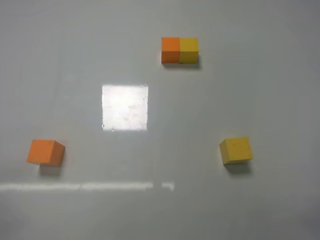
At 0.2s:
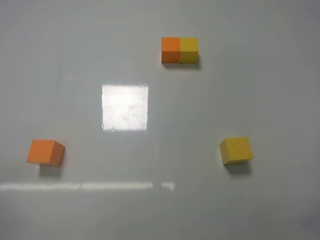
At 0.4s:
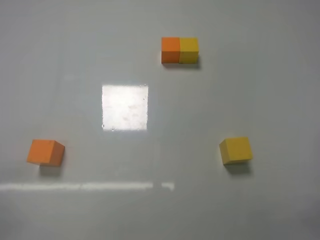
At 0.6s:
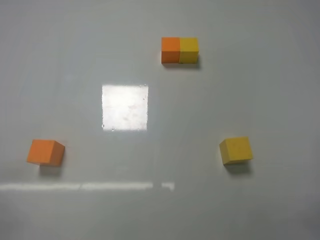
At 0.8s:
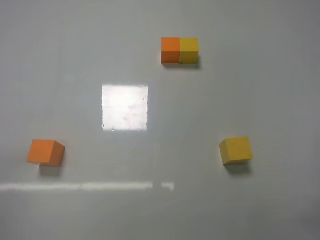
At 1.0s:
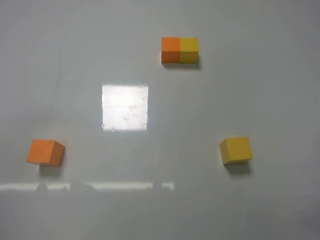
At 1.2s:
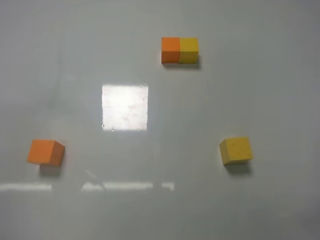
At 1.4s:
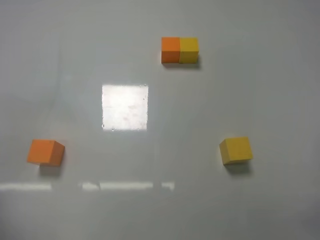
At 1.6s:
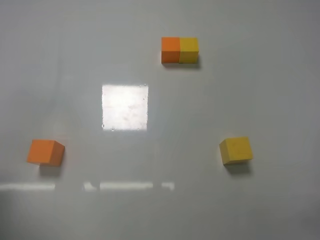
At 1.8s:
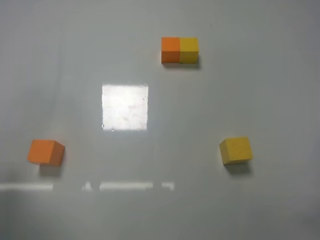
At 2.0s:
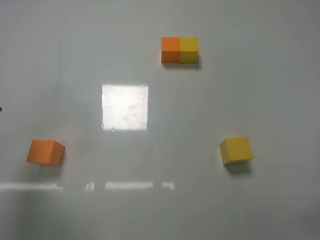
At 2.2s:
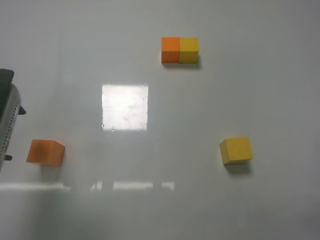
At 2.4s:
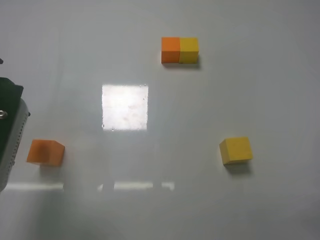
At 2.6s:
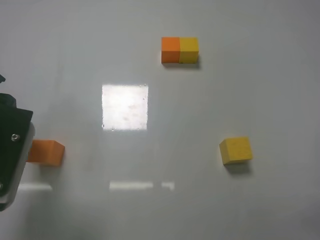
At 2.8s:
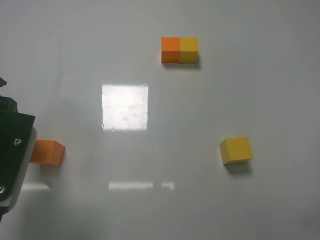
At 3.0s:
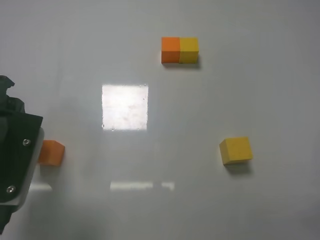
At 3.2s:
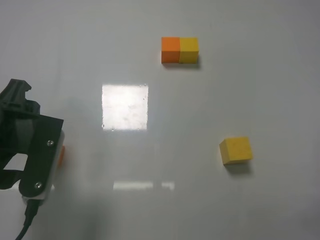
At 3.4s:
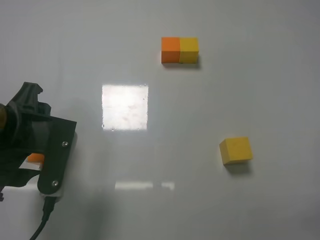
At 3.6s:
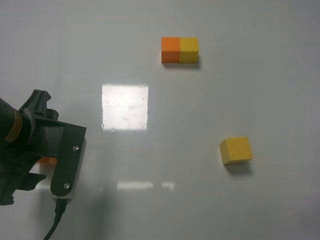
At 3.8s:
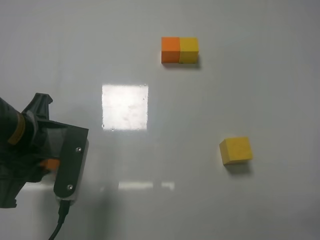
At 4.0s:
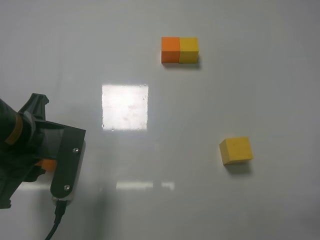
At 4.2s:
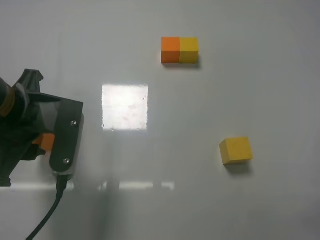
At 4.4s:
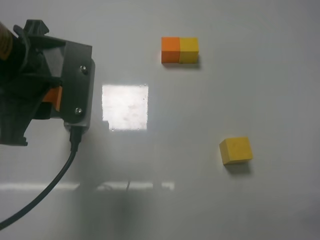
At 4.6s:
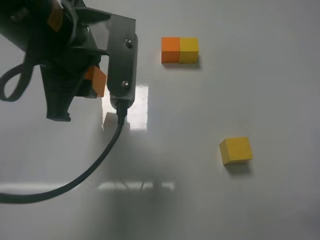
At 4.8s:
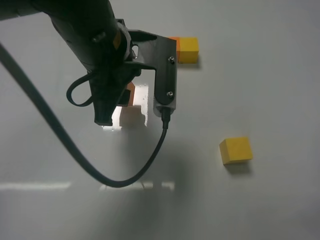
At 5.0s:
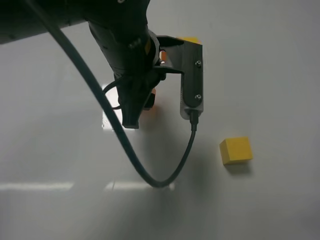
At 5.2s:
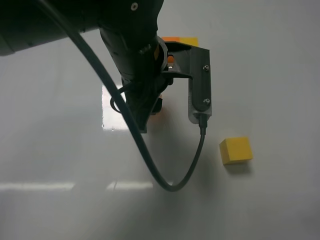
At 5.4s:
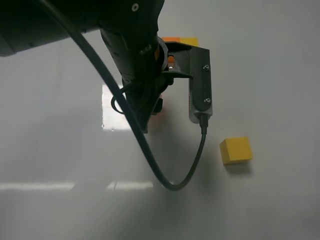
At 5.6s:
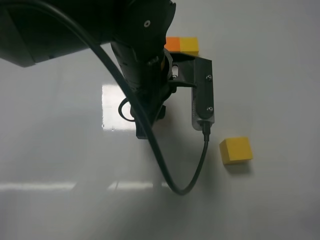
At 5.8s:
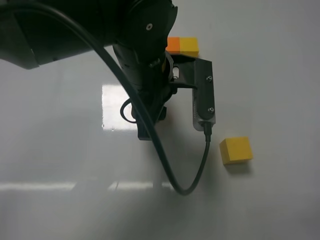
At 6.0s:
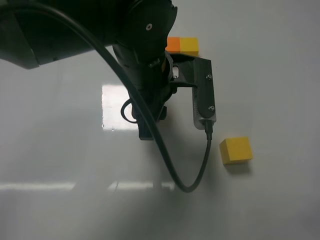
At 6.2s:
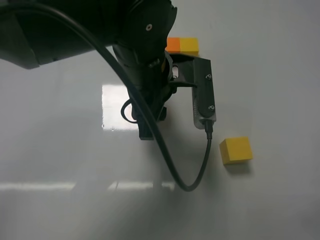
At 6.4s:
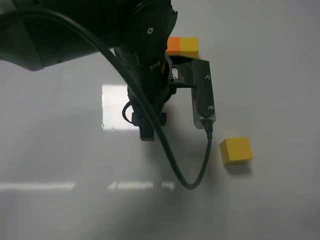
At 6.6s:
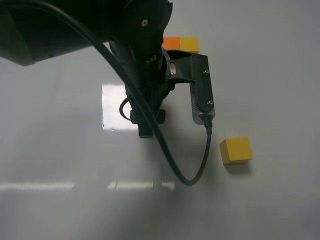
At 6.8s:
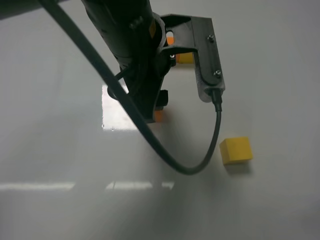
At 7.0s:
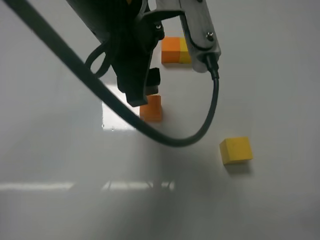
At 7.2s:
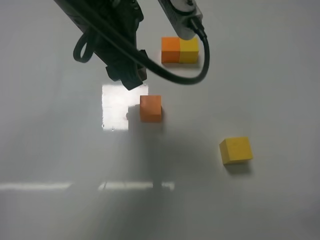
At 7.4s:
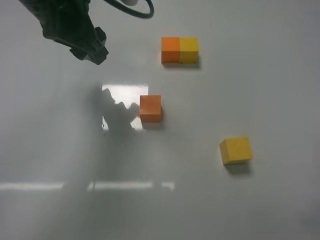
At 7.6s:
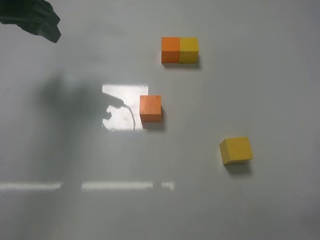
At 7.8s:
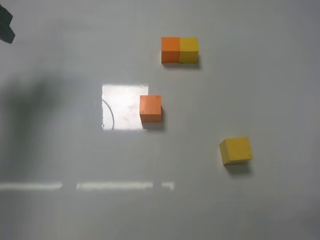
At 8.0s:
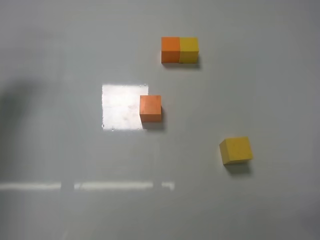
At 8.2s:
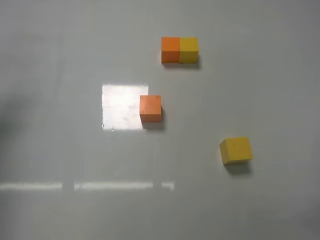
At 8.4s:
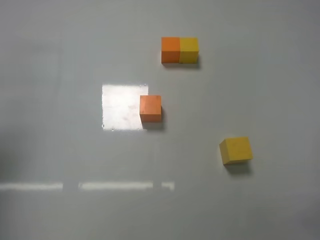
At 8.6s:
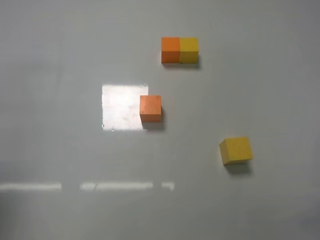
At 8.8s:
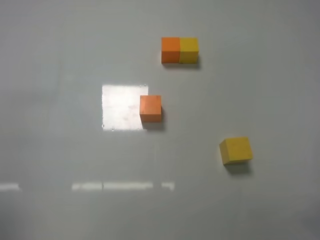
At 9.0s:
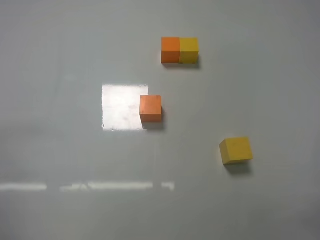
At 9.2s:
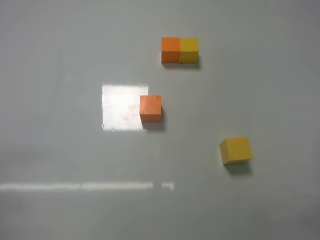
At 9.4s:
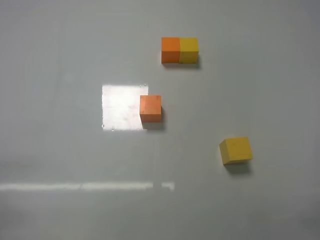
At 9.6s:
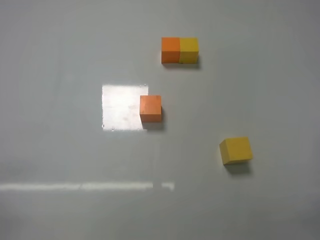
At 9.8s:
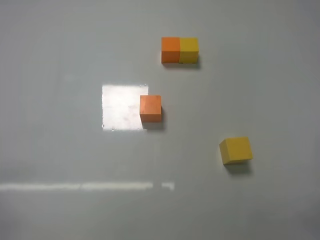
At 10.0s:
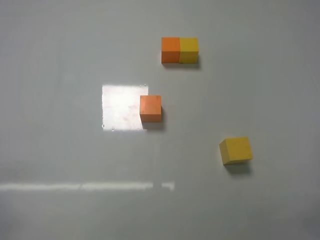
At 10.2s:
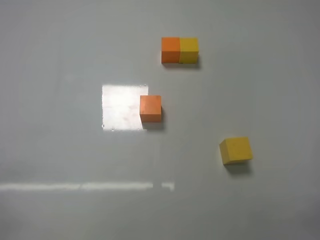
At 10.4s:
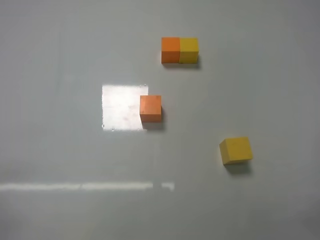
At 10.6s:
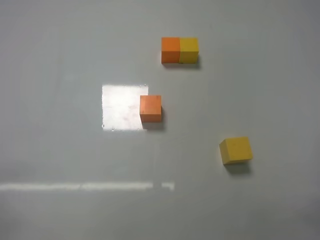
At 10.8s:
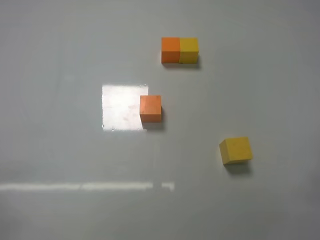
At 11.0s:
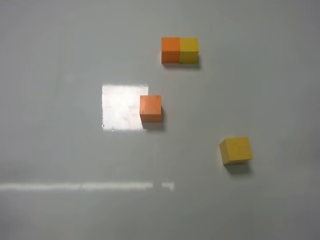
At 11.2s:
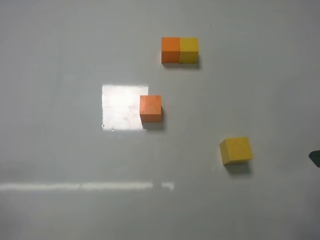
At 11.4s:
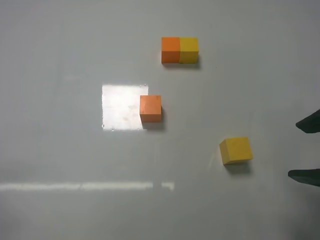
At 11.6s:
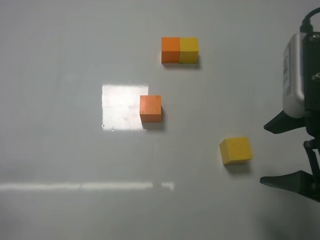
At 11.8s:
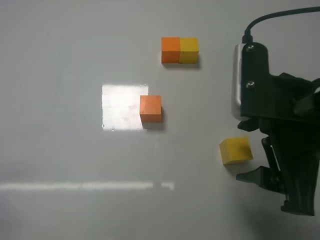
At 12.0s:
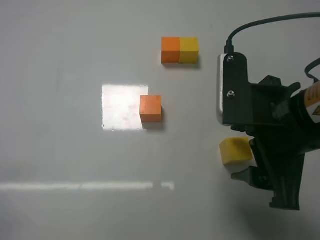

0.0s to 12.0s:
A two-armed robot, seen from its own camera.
Task of the whole recording: According to the building block template in front, assemble the scattered blocks together.
Step, 0.0s to 3.8s: Grasp the orange block with left gripper.
Step, 4.0s to 6.6s: Adjust the position of the cube with the left gripper.
0.0s to 1.6s: The left gripper is displaced upward and forward by approximately 20 cm.
1.6s to 3.0s: The left gripper moves to the right and downward, some 10 cm.
3.0s to 4.4s: The left gripper shifts about 10 cm upward and to the right, and closes up.
4.4s to 6.0s: The left gripper travels to the right and forward by approximately 15 cm.
6.0s to 7.6s: The left gripper heads to the left and upward, covering some 25 cm, and opens its fingers.
7.6s to 9.0s: The left gripper moves backward and downward, some 30 cm.
10.4s to 12.0s: The right gripper goes roughly 25 cm forward, to the left and upward, and opens its fingers.

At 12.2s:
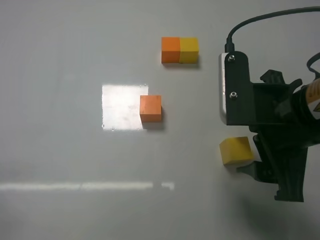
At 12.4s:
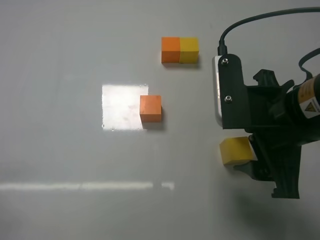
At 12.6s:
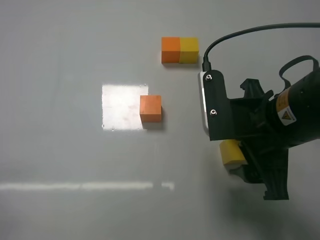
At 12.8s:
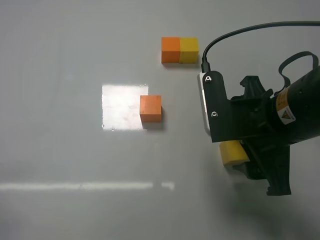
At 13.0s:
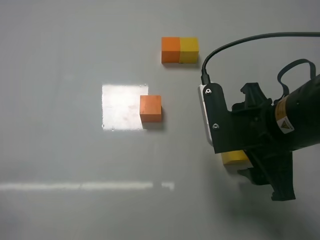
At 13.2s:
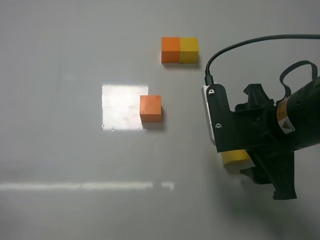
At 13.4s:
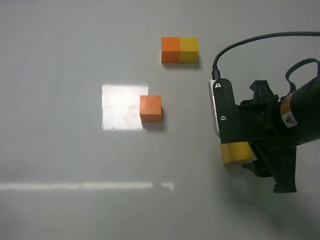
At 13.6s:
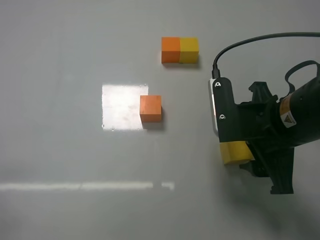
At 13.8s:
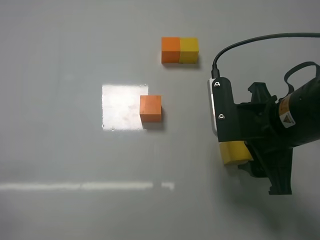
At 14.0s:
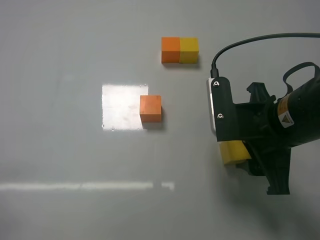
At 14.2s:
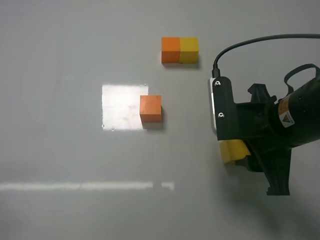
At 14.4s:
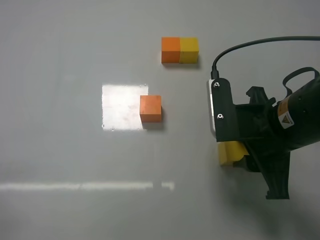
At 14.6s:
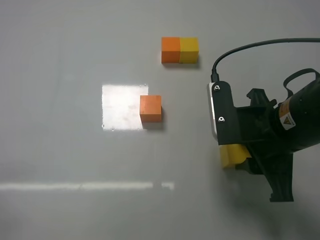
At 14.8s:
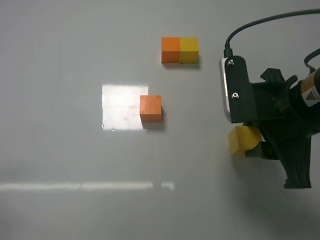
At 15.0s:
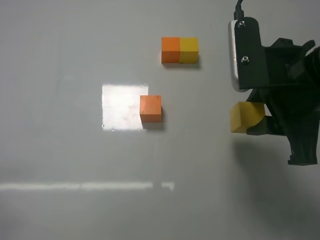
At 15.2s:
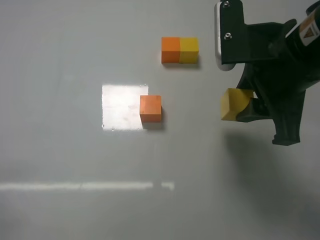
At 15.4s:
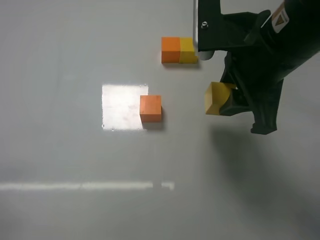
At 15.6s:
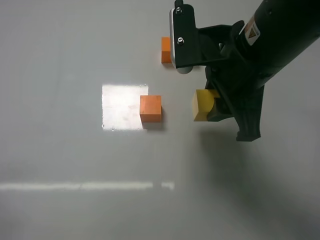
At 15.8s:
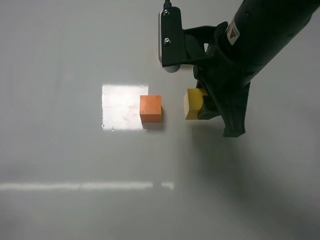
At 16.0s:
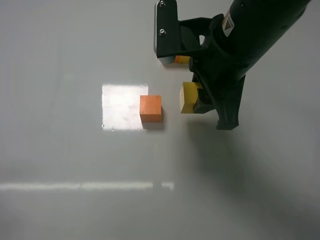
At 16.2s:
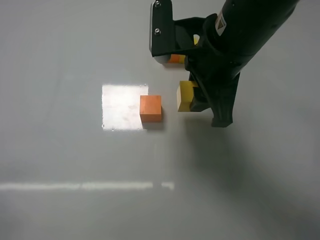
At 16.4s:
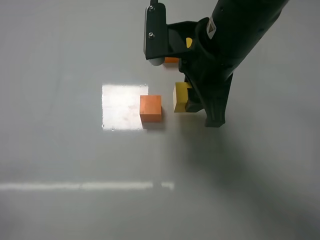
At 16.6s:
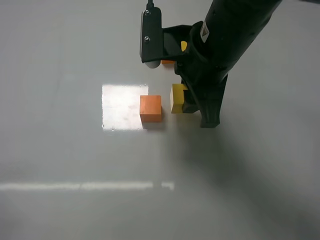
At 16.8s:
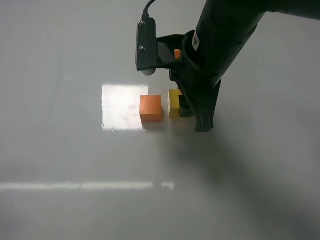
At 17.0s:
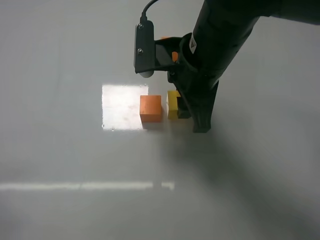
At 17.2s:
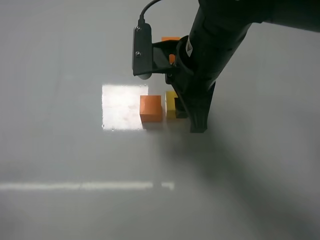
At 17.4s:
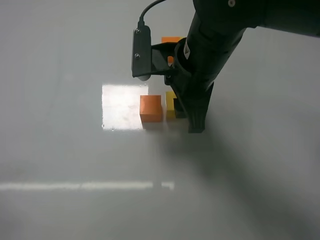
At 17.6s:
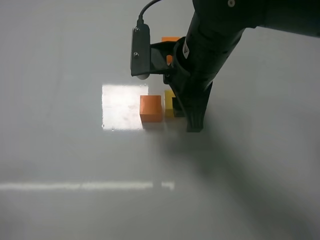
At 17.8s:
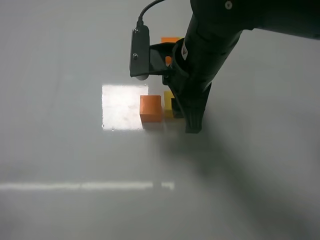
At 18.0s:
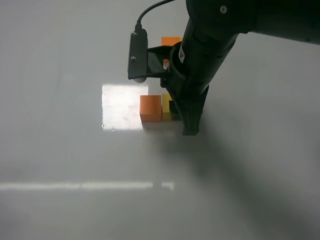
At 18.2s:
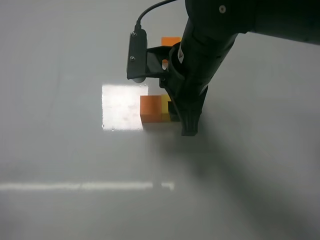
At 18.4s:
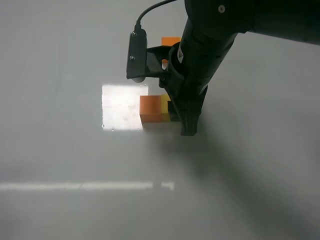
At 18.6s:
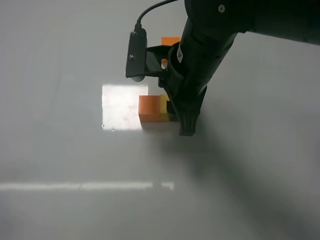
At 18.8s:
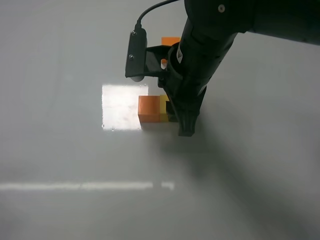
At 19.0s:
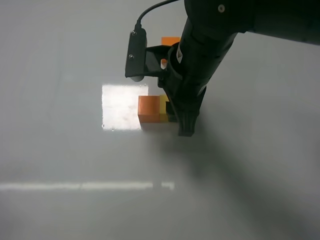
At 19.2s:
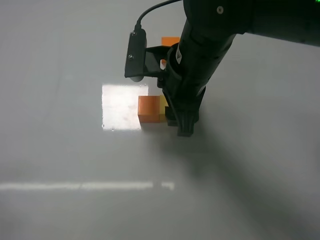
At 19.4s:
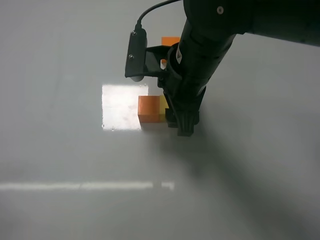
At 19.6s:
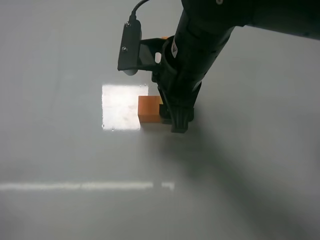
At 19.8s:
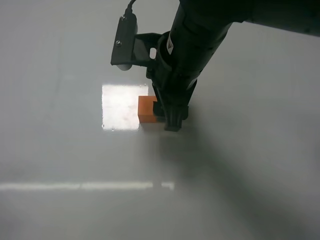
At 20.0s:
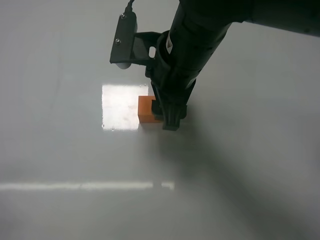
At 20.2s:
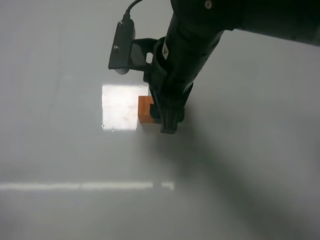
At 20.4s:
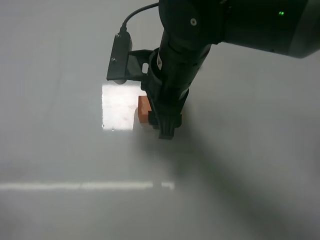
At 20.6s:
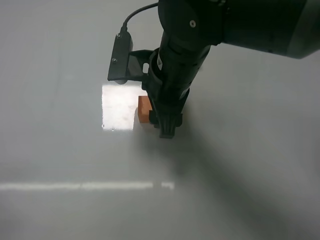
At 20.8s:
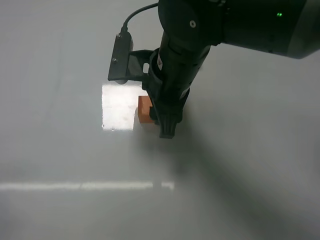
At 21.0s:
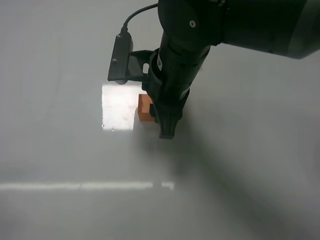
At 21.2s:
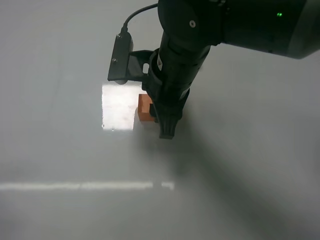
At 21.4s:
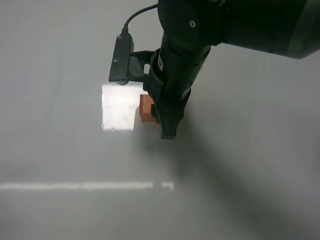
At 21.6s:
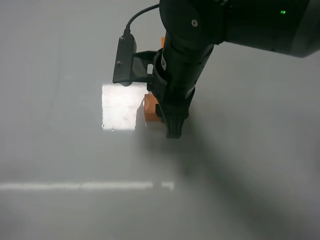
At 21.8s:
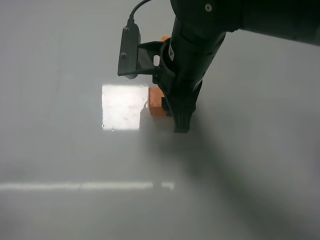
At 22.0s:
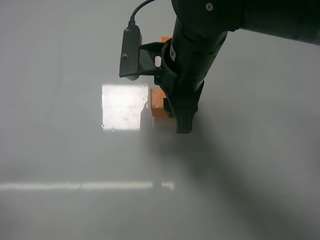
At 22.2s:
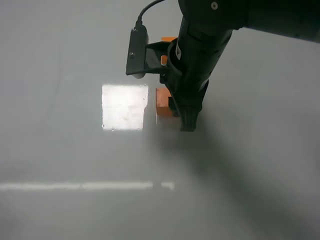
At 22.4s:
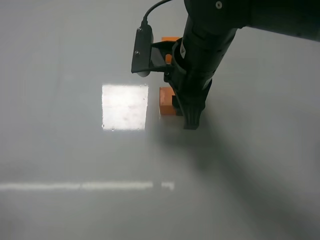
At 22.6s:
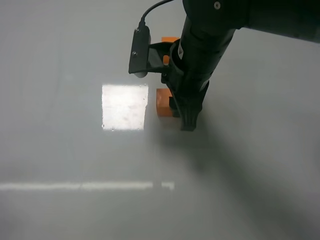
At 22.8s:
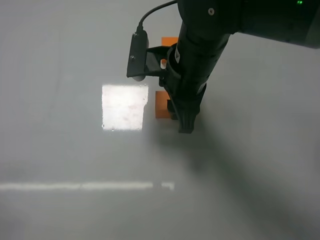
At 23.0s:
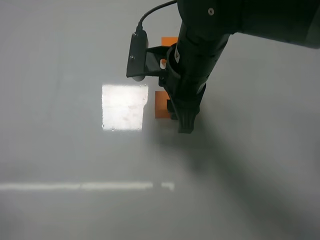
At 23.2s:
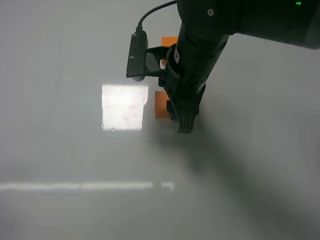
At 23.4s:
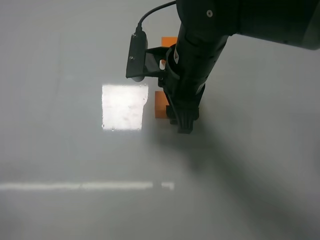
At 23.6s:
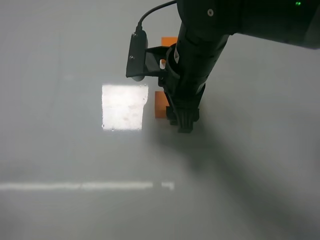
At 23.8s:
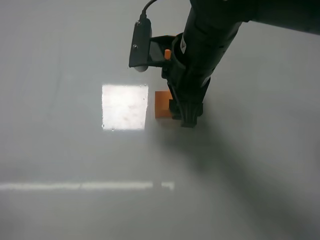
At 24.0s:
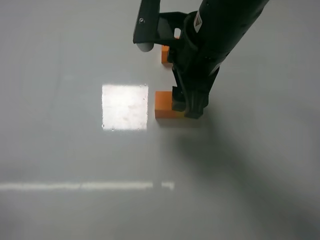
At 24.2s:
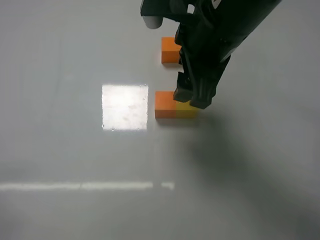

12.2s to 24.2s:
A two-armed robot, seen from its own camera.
Task of the whole recording: According to the building block template in front, assemble the scattered blocks together.
Step, 12.2s to 14.2s: Grasp the yellow block with right gripper.
Step, 14.4s to 19.6s: Put the yellow cube on the right of the orange cube with the right gripper.
Step, 19.8s to 23.8s: Put the yellow cube and orange cube in the center of the table with the right gripper.
12.2s to 13.8s: The grippers move only a little.
13.8s to 15.2s: The right gripper travels upward by about 10 cm, and closes its fingers.
15.2s to 16.6s: The right gripper moves to the left, approximately 10 cm.
16.6s to 18.2s: There are only small adjustments of the grippers.
18.2s to 19.8s: The right gripper opens up.
19.8s to 21.2s: The right gripper closes its fingers.
21.2s to 22.6s: The grippers move only a little.
22.6s to 24.2s: The right gripper goes approximately 5 cm upward, and opens.
